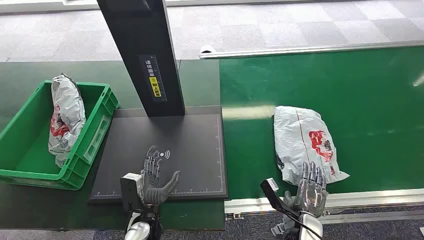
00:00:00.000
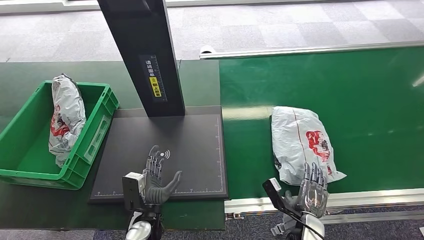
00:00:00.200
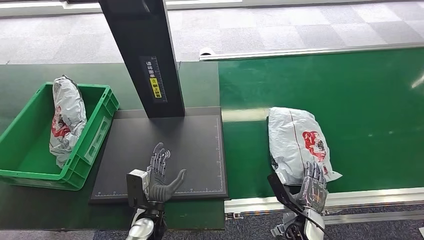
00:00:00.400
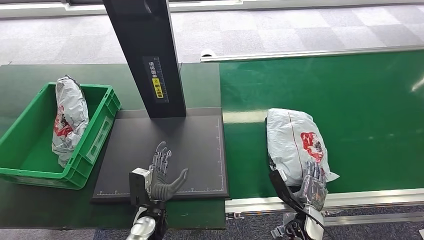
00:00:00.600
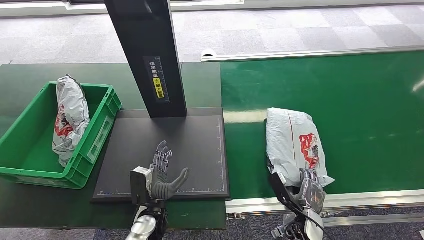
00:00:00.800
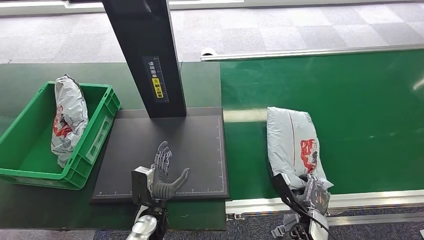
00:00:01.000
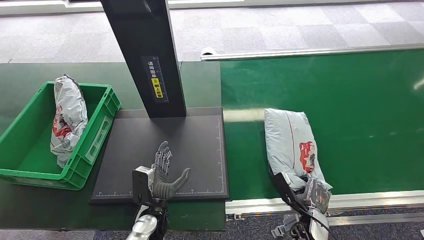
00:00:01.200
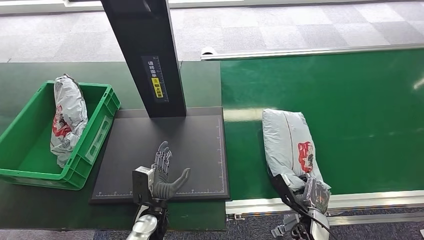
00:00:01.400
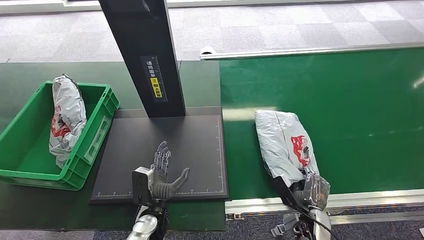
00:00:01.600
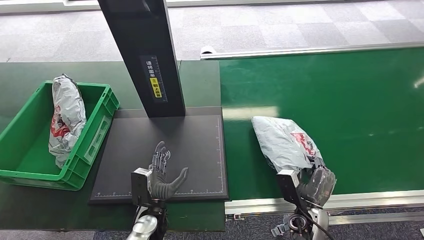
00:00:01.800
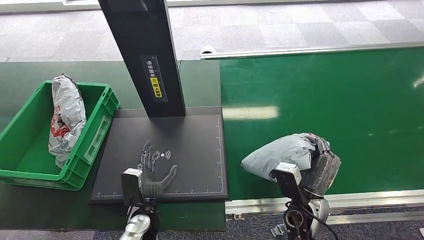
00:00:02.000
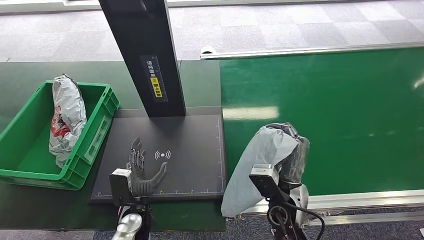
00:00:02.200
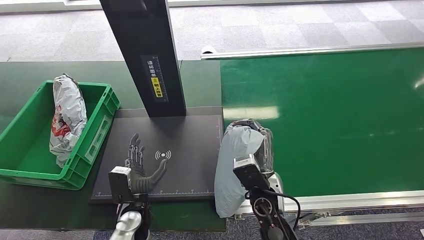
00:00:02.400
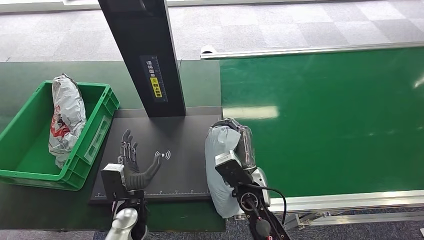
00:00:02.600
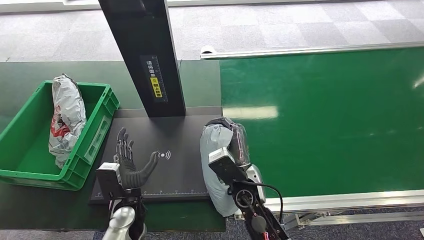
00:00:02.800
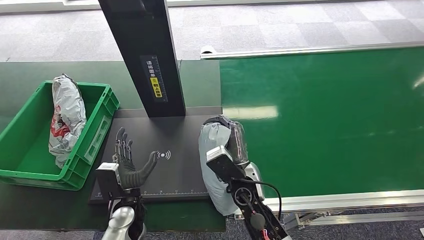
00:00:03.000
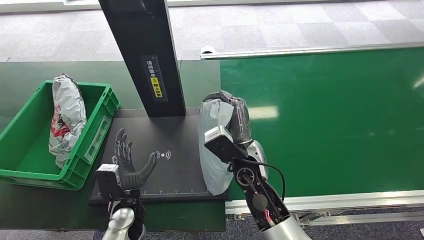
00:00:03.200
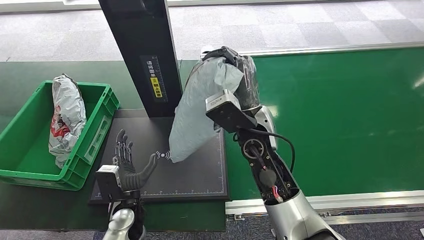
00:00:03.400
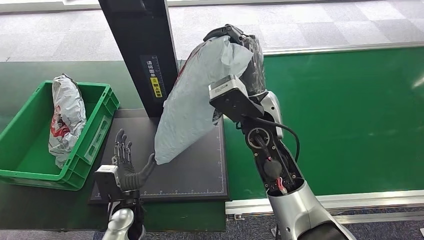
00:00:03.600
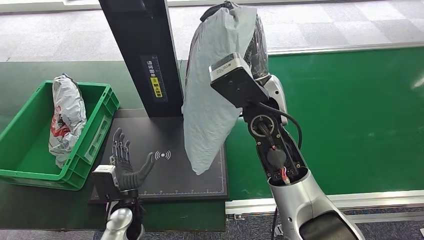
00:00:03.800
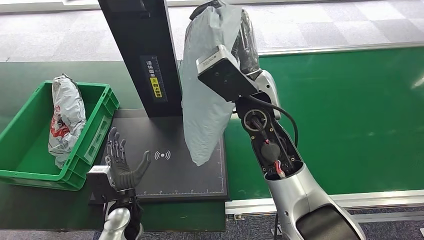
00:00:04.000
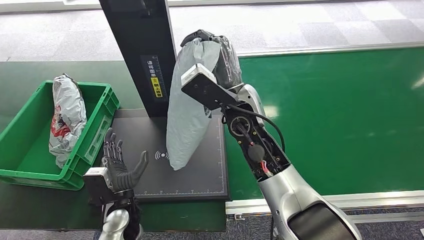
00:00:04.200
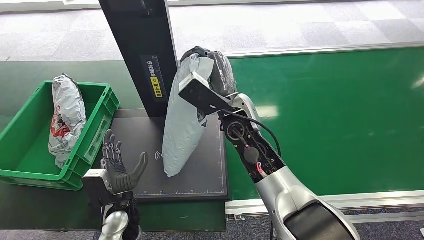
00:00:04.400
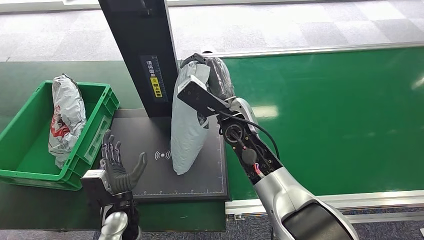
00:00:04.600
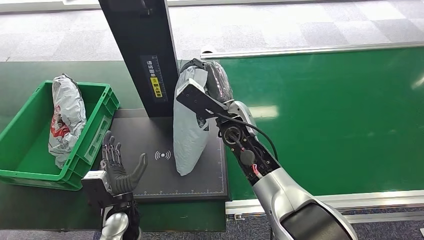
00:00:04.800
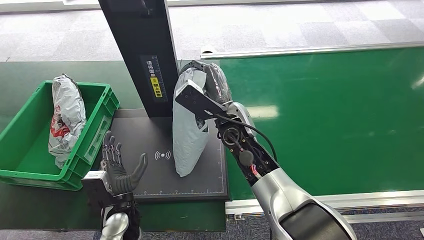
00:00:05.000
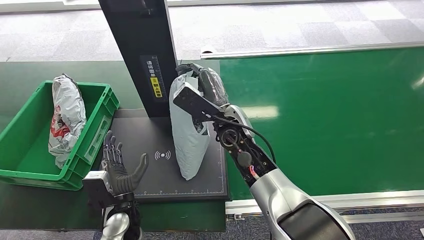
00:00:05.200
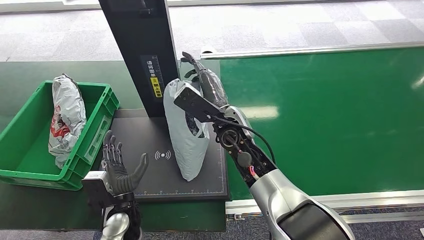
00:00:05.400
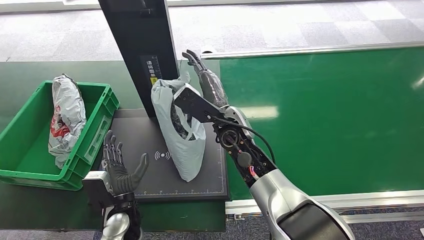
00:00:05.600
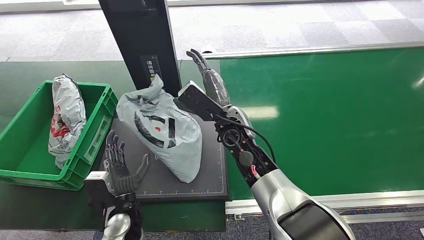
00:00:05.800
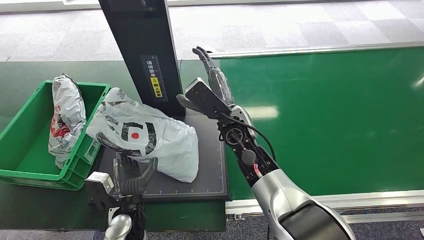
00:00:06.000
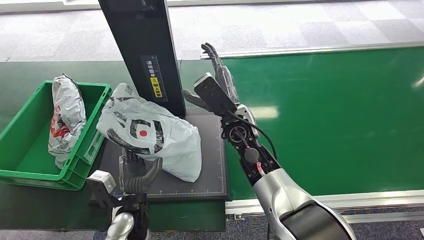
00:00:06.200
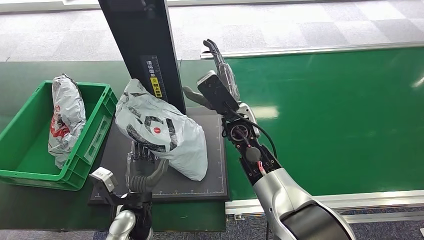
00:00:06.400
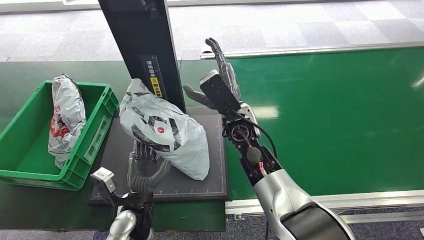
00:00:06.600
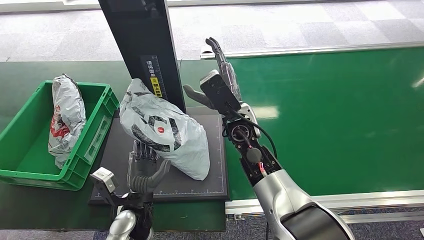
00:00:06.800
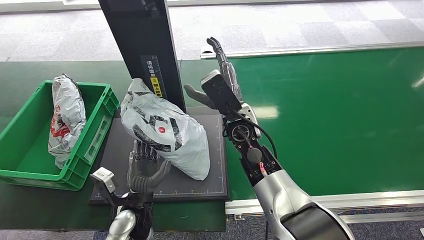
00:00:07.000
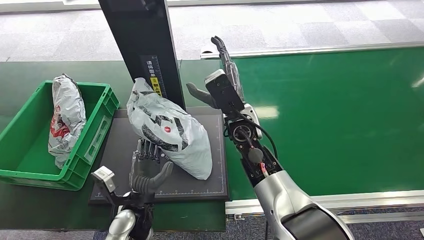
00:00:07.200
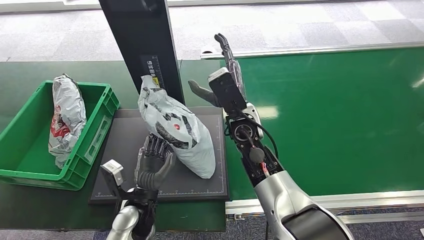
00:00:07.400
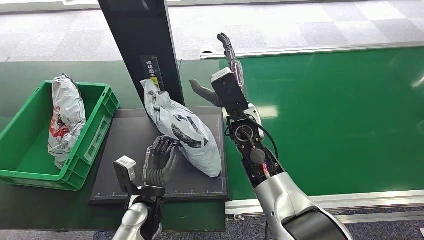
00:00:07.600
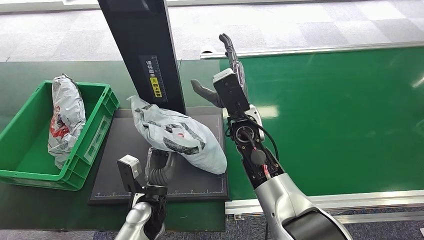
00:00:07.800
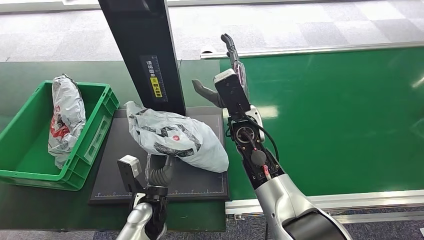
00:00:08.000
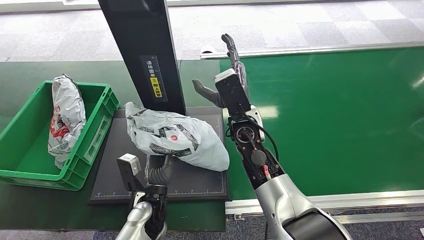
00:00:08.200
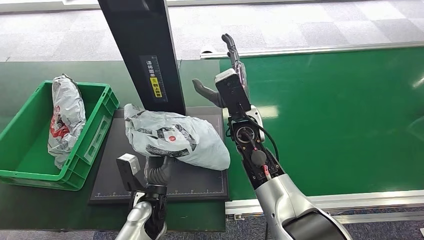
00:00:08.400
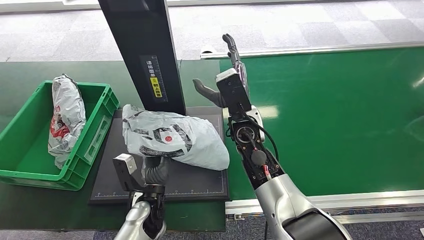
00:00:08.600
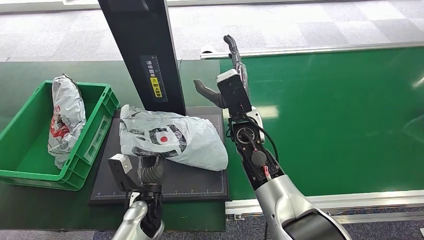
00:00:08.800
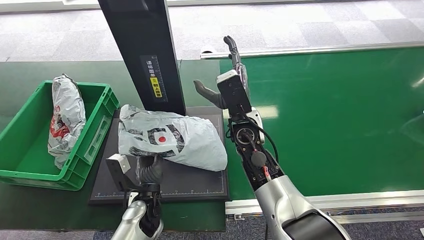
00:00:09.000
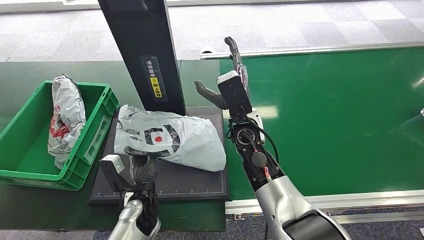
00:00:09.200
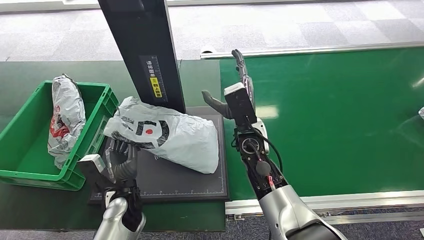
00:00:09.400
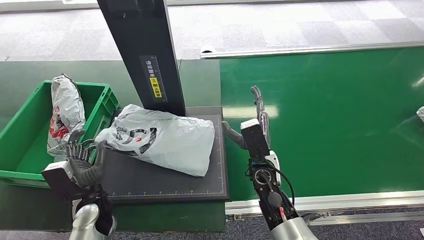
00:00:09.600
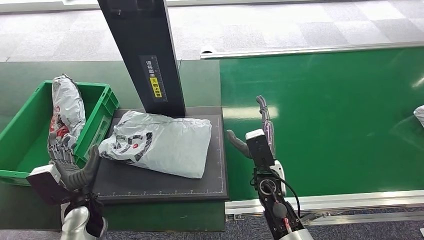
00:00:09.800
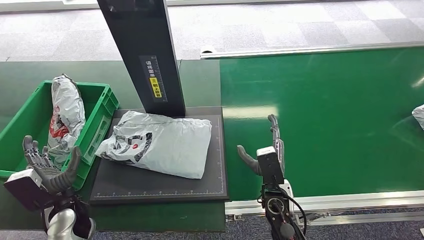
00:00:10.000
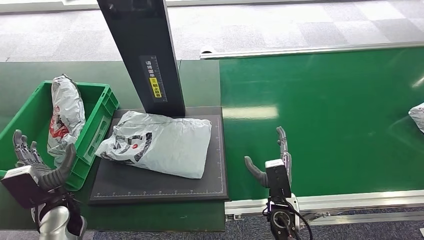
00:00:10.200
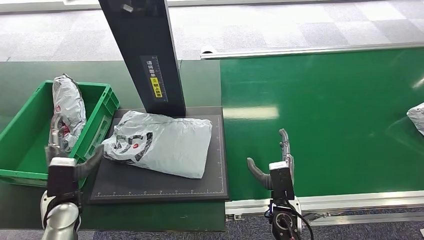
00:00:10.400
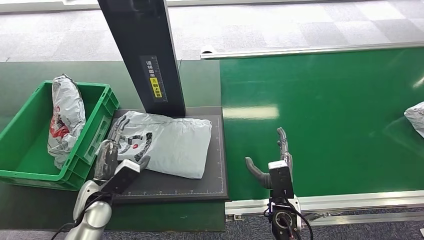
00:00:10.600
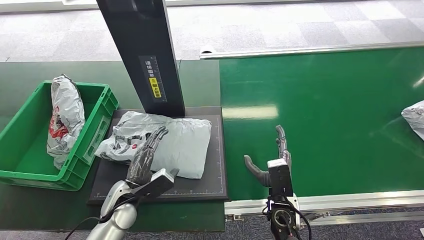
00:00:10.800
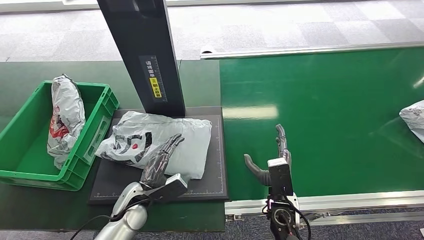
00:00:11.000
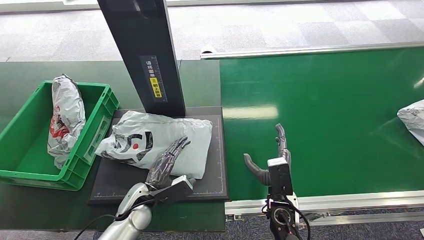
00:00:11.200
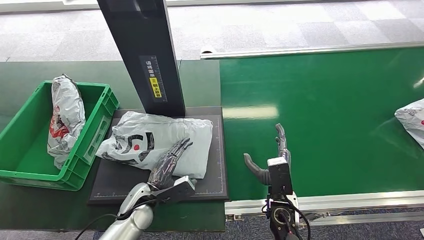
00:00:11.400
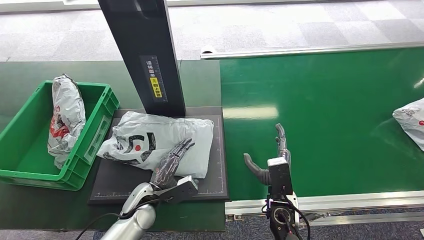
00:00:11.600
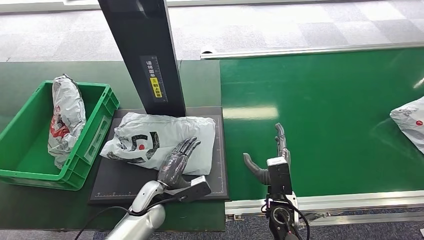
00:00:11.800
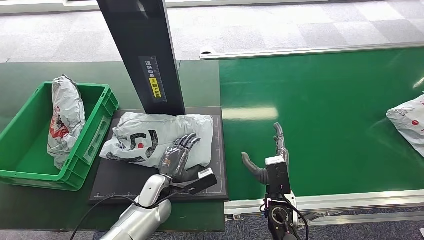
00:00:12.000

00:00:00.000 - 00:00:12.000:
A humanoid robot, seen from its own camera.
Step, 00:00:00.000 - 00:00:02.400: Pick up the package from the conveyor belt.
Step, 00:00:02.600 - 00:00:11.600: Place the package onto the inbound machine.
00:00:01.600 - 00:00:03.000: The right hand travels to the left and upward by roughly 25 cm; the left hand travels to the left by roughly 5 cm.
00:00:03.000 - 00:00:04.400: The right hand shifts about 20 cm upward and forward.
00:00:04.400 - 00:00:06.000: The hands make only small movements.
00:00:06.000 - 00:00:07.600: The left hand changes place by some 5 cm.
00:00:07.600 - 00:00:09.000: The hands make only small movements.
00:00:09.000 - 00:00:10.400: The right hand shifts some 25 cm downward, backward and to the right; the left hand travels to the left by some 20 cm.
00:00:10.400 - 00:00:12.000: The left hand moves to the right, about 20 cm.

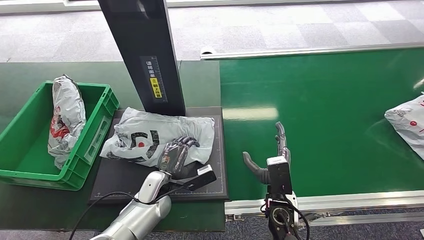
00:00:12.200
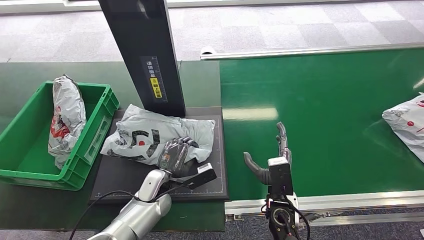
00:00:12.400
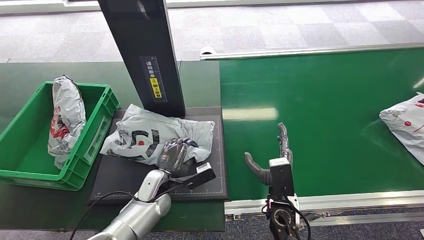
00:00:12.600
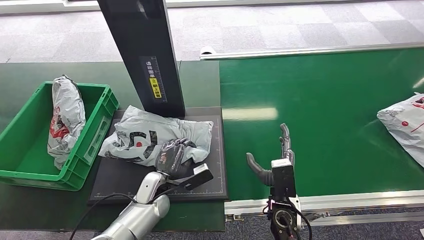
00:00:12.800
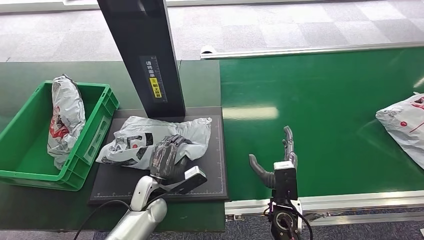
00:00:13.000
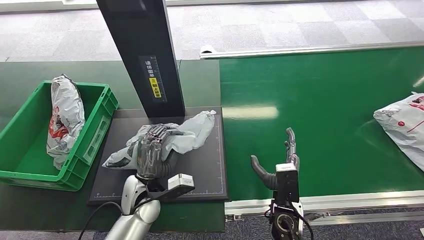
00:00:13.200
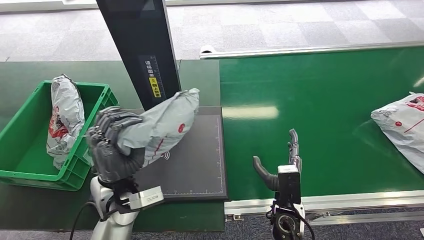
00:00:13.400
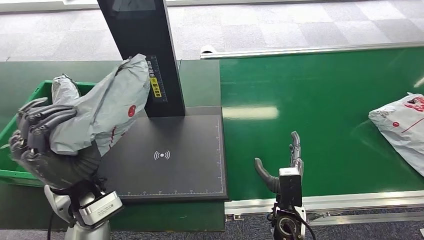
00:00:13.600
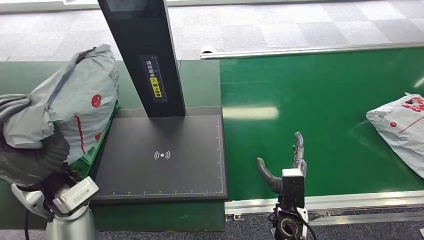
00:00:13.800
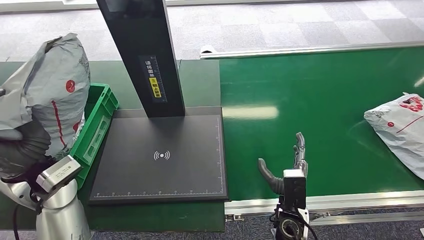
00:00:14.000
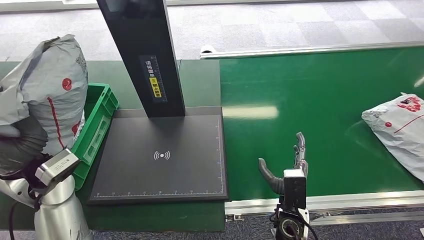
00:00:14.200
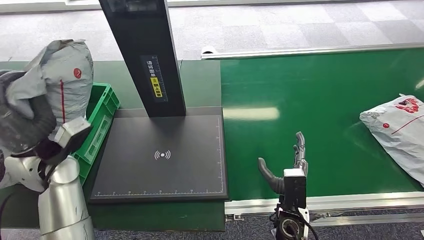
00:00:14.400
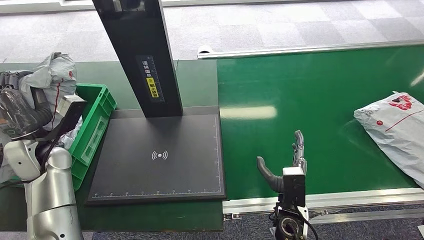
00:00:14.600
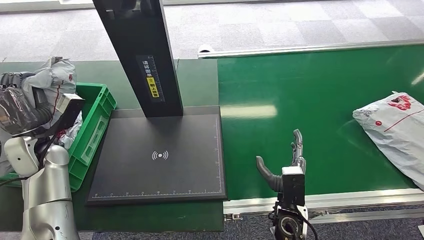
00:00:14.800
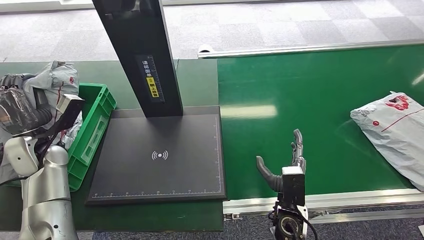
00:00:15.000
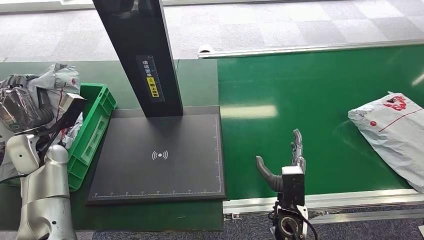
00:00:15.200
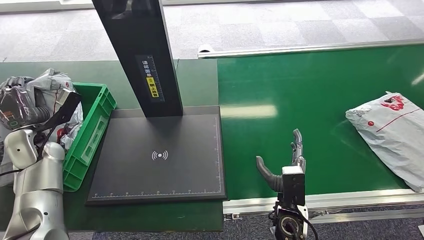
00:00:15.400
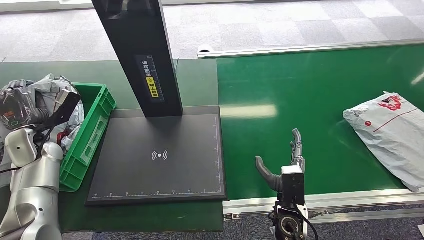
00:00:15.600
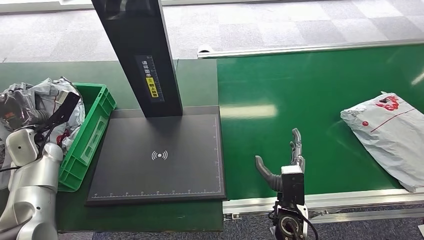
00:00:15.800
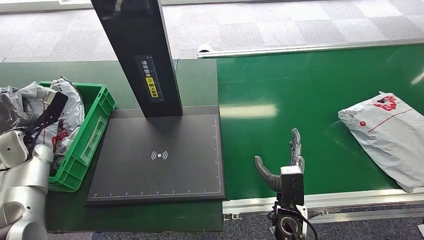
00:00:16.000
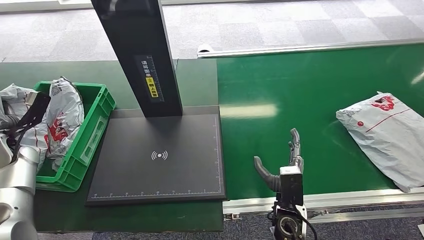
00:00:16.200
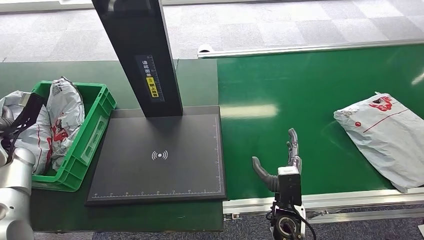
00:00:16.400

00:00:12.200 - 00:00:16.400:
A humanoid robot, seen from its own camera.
Step, 00:00:12.200 - 00:00:14.200: Pick up the package from the inbound machine.
Step, 00:00:14.400 - 00:00:16.400: Place the package into the parcel locker.
00:00:15.000 - 00:00:16.400: The left hand moves to the left, about 10 cm.
